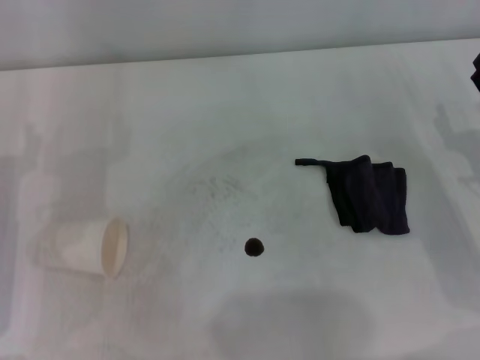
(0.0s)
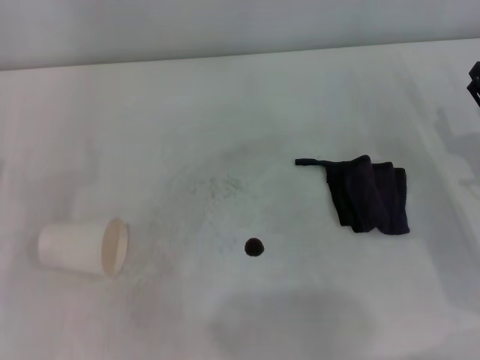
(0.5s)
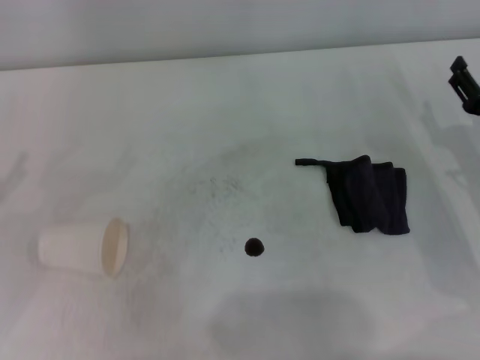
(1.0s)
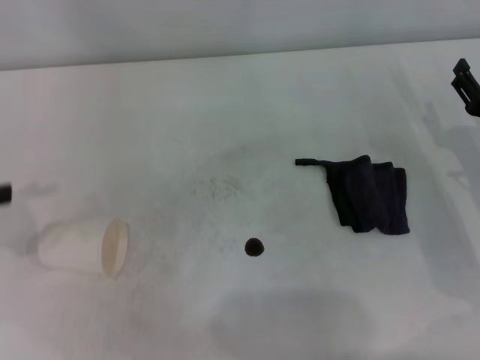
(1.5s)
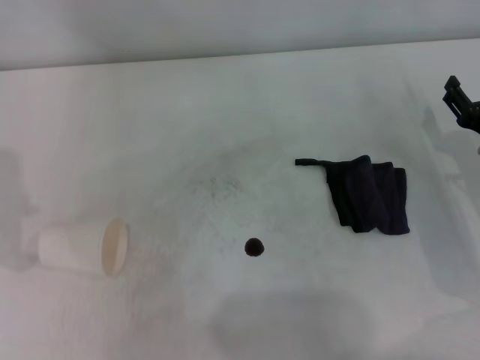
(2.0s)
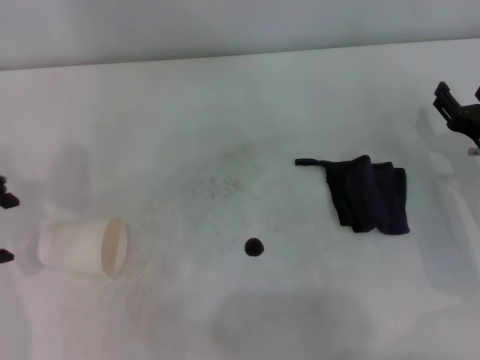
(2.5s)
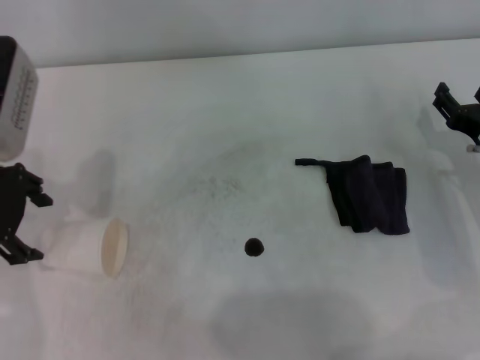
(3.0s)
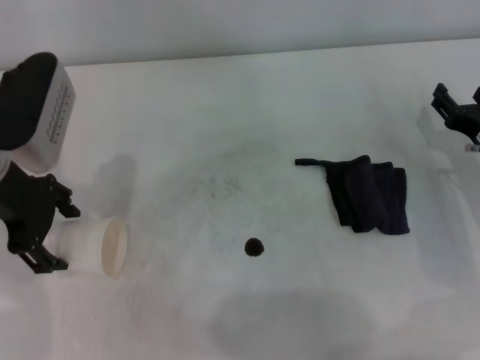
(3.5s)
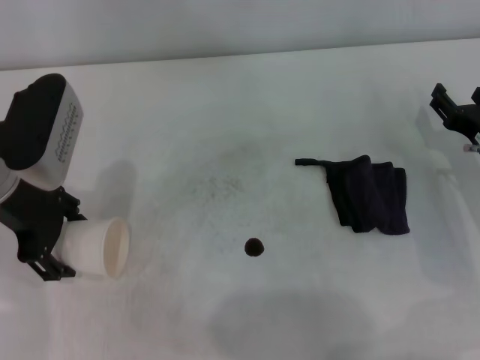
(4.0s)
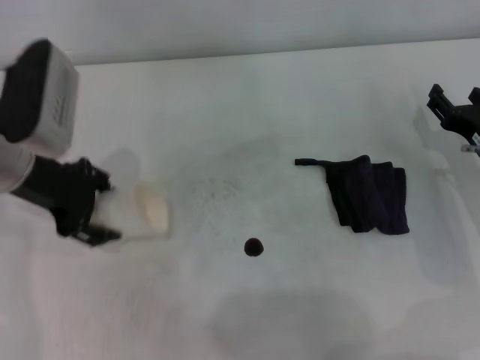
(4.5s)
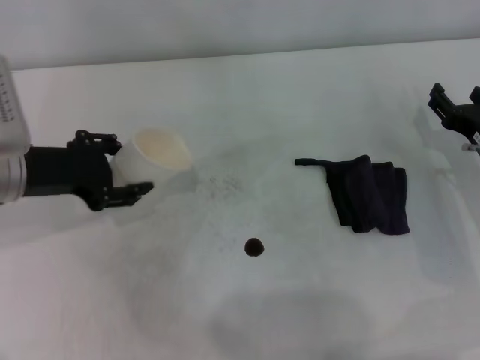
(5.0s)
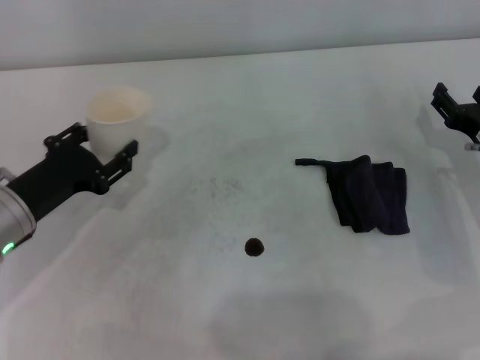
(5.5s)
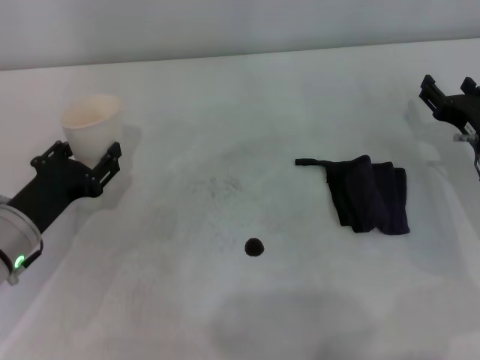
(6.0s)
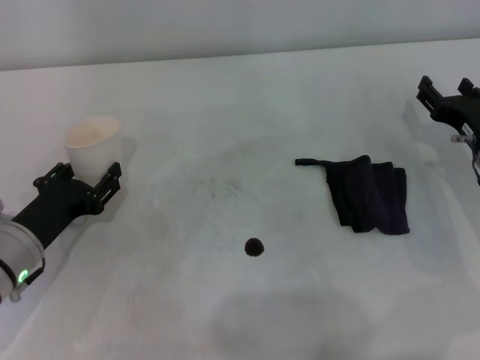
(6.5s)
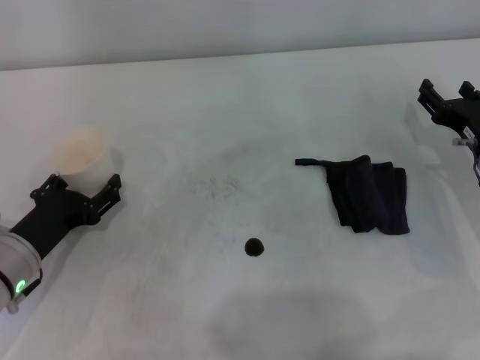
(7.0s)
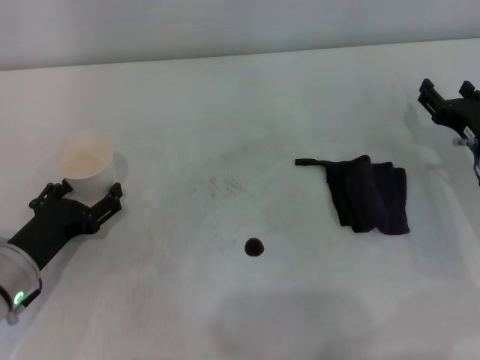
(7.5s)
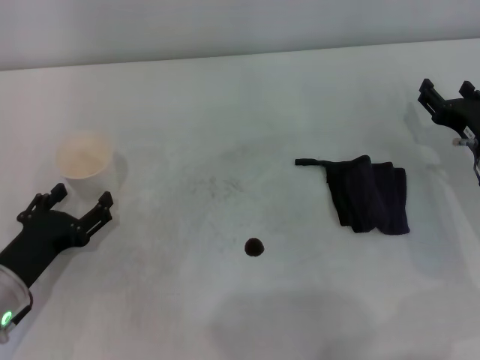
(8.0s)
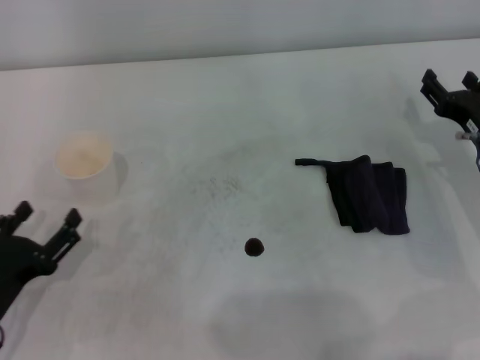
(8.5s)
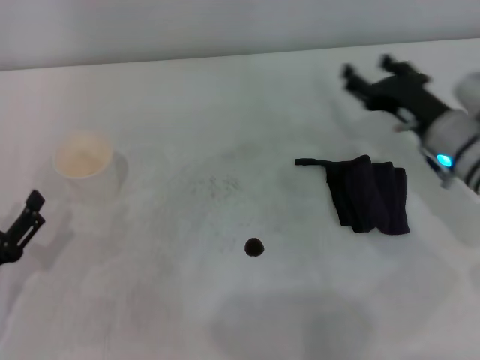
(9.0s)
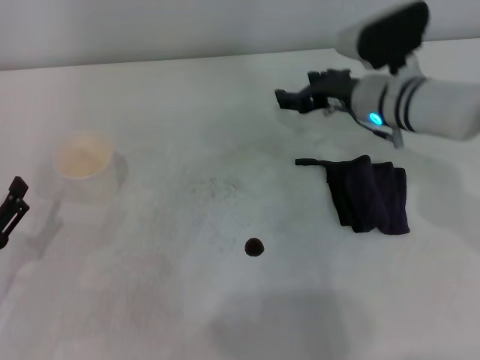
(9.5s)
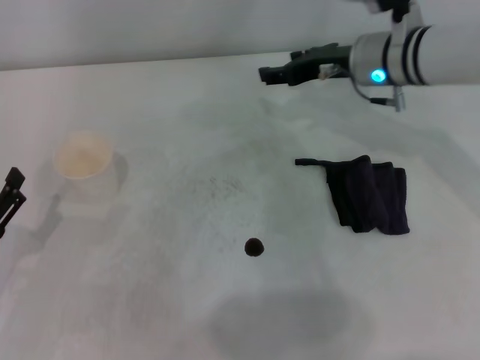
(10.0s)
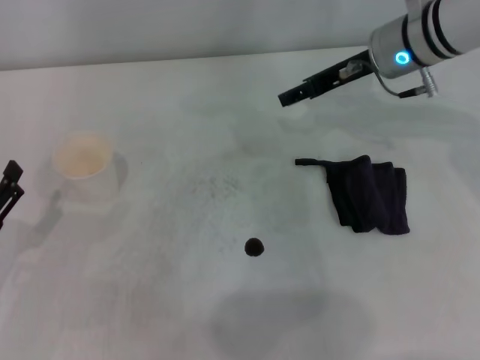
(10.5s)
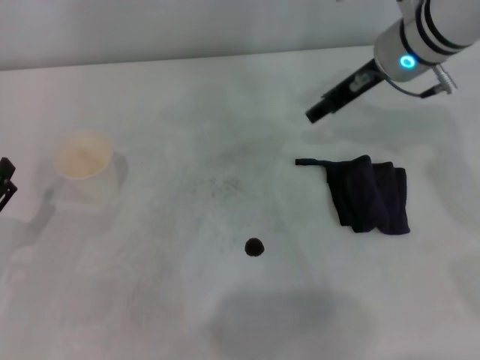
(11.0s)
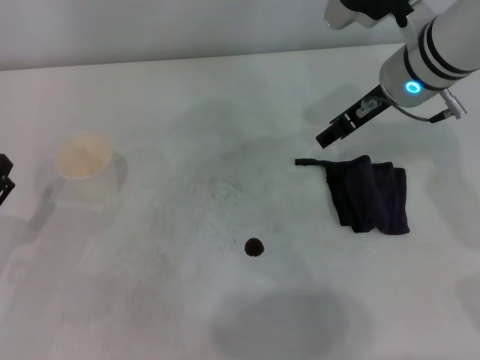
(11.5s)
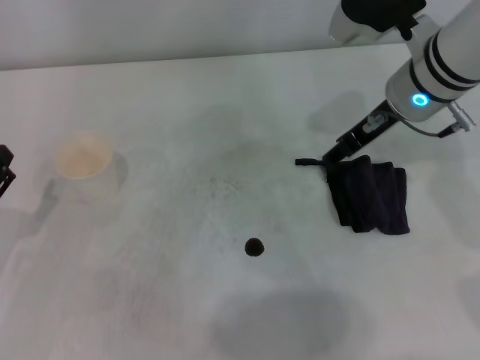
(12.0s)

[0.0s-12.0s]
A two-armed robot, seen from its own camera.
Step, 0.0s to 4.0s: Grasp the paper cup with the left gripper.
Step, 4.5s to 7.0s: Stand the paper cup upright with the left gripper.
2.0s to 4.0s: The left gripper moves to the right and downward, some 15 cm.
4.0s to 6.0s: The left gripper moves downward and backward, some 15 cm, and closes up.
6.0s to 8.0s: The left gripper goes some 5 cm backward, and opens.
8.0s to 10.0s: The right gripper is displaced forward, to the left and upward by approximately 20 cm. The left gripper moves about 5 cm.
10.0s to 12.0s: The right gripper ends up about 5 cm from where it was.

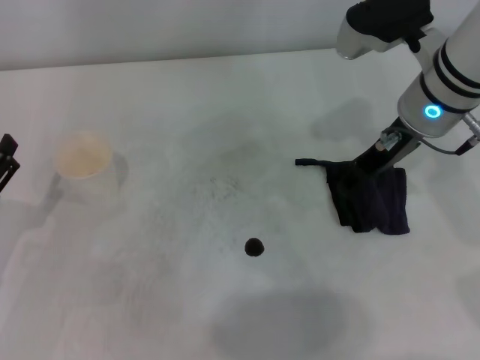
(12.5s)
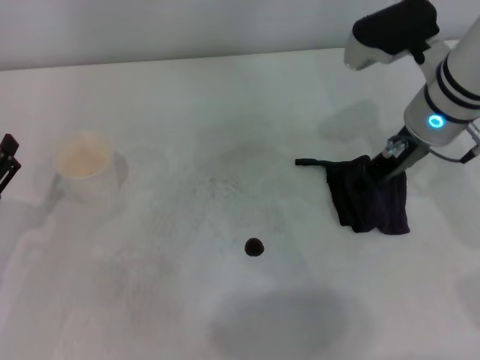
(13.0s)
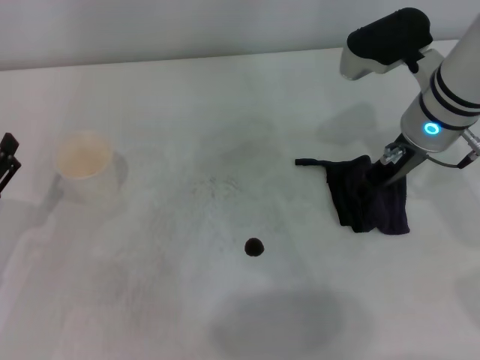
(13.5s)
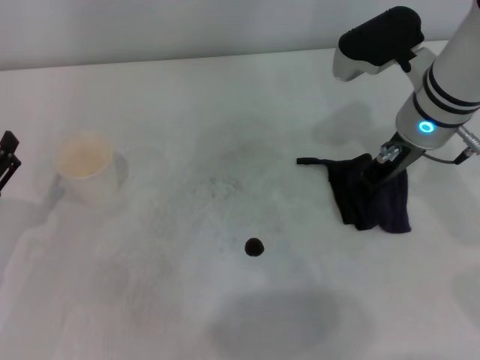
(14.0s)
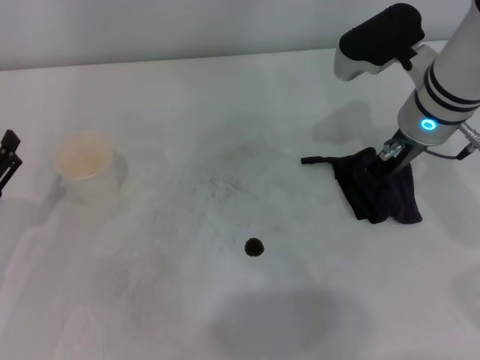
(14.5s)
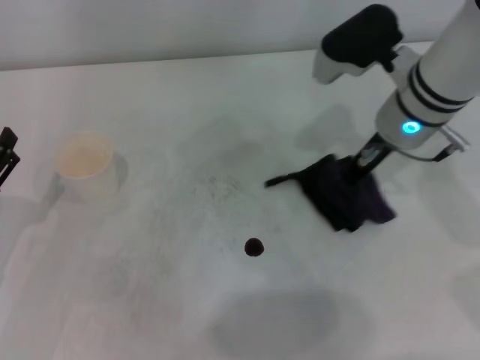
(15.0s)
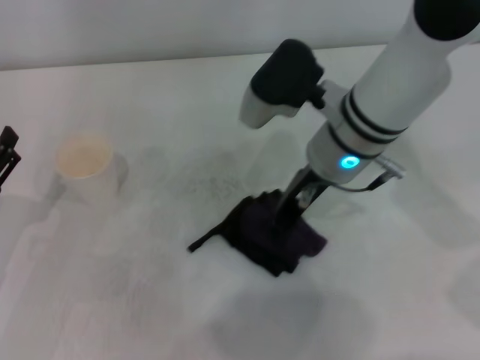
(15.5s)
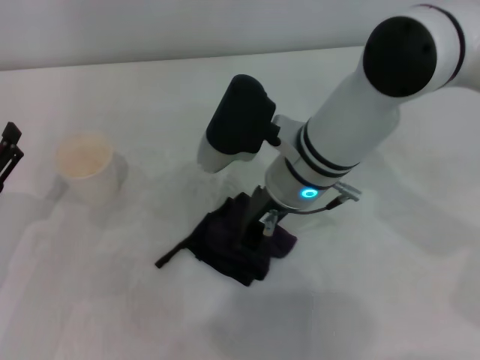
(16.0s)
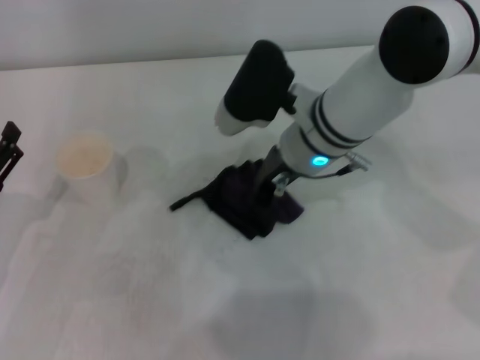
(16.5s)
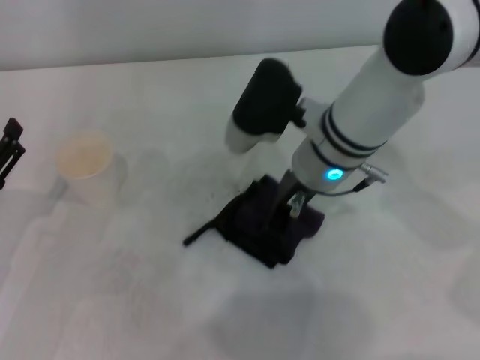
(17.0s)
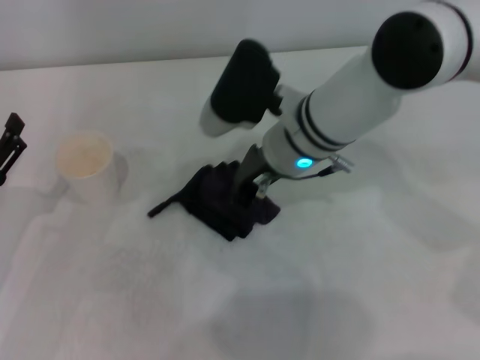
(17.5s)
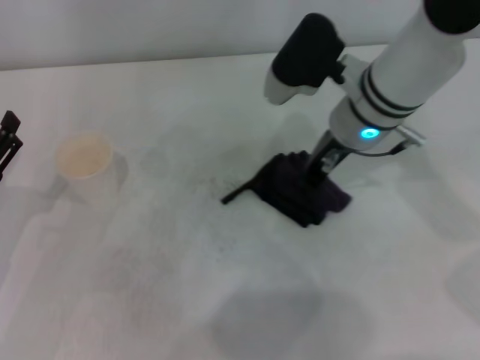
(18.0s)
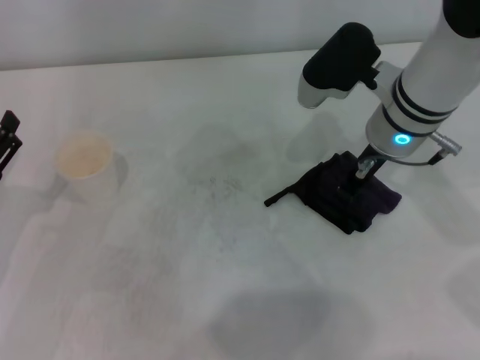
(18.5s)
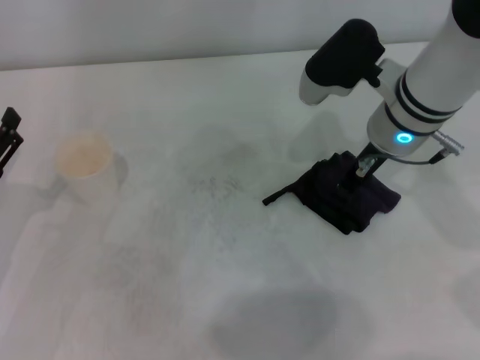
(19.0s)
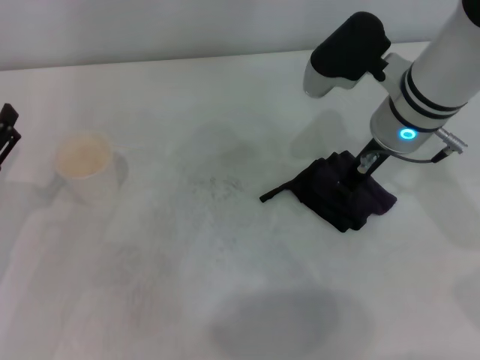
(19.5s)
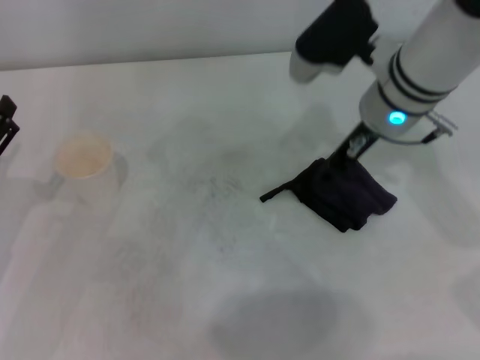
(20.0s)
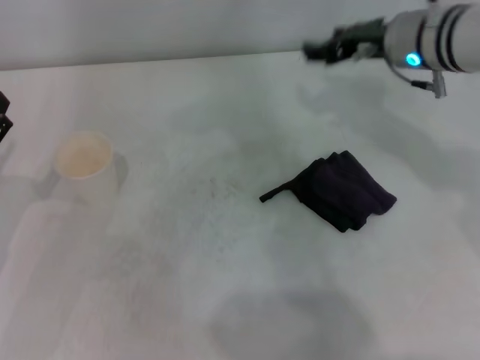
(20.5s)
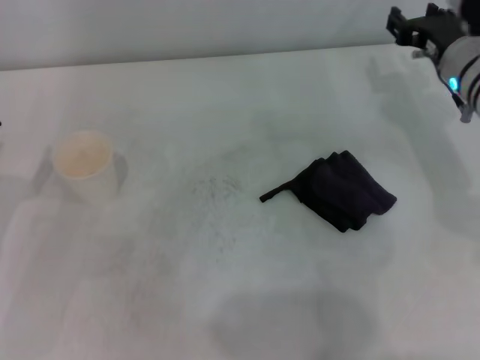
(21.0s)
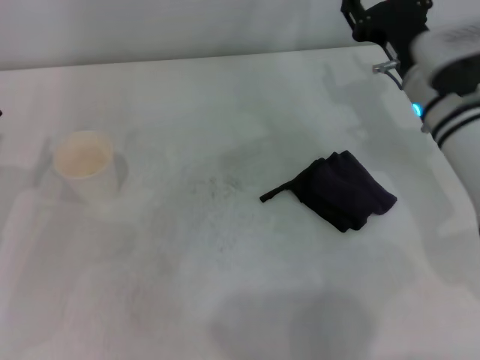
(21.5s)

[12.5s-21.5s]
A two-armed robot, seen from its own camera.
Step, 15.0s to 18.5s: Wipe the stains off the table with the right gripper.
Step, 19.0s to 19.5s: Place the rag on the table with the right gripper.
12.5s to 14.5s: The right gripper closes its fingers.
14.5s to 17.0s: The right gripper is displaced to the left by about 10 cm.
17.0s to 19.5s: The right gripper shifts roughly 5 cm to the right.
19.5s to 21.5s: The right gripper changes place by approximately 5 cm, and opens.

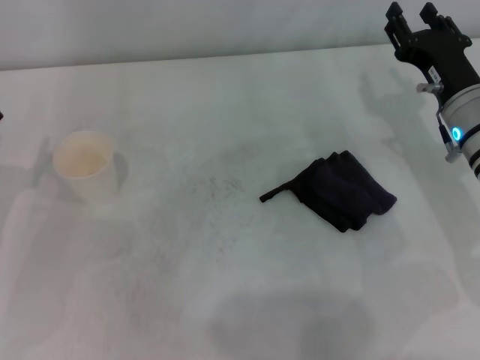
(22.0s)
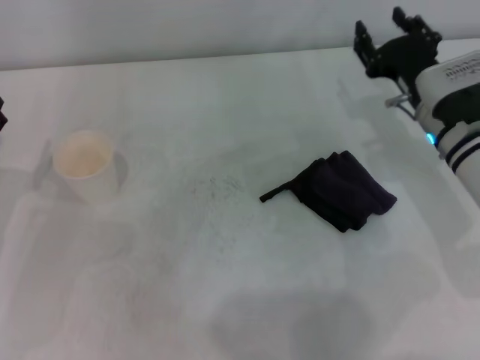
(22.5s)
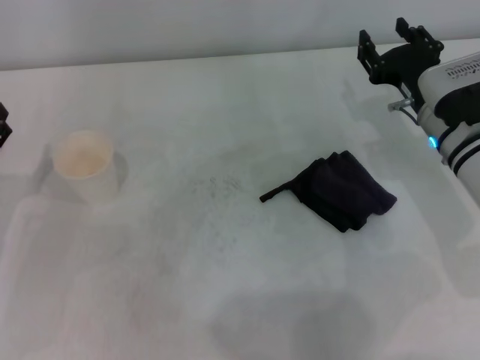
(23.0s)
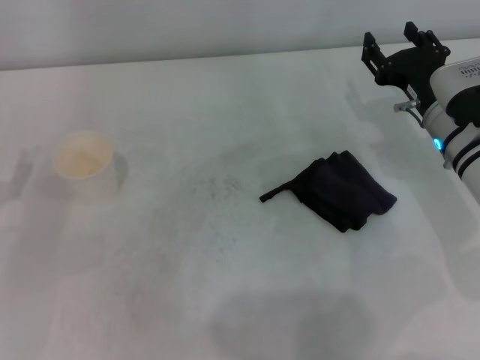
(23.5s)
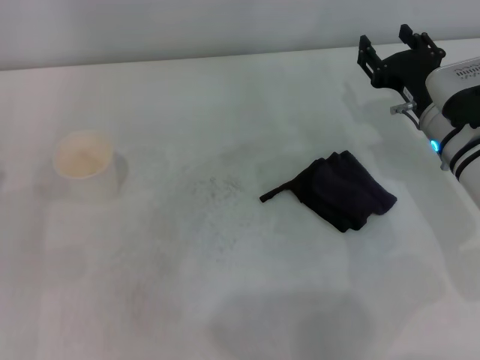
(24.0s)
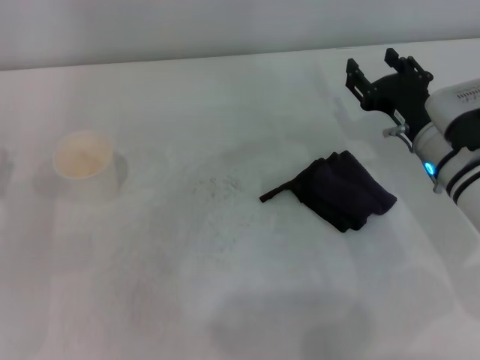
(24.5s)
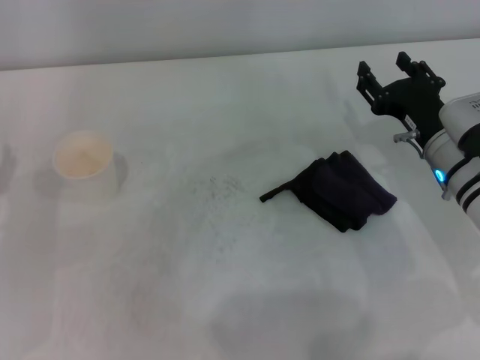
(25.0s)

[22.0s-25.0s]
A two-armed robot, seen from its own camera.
23.5s to 25.0s: The grippers stay close to where they were, moving slightly.

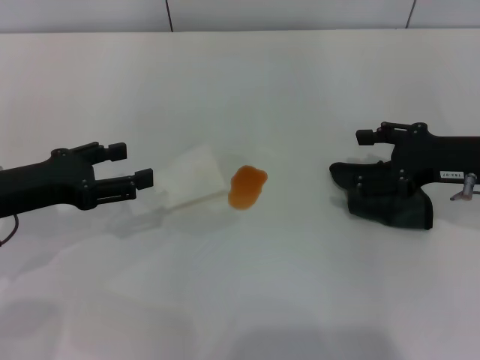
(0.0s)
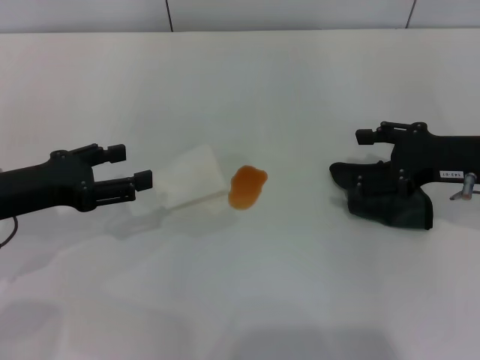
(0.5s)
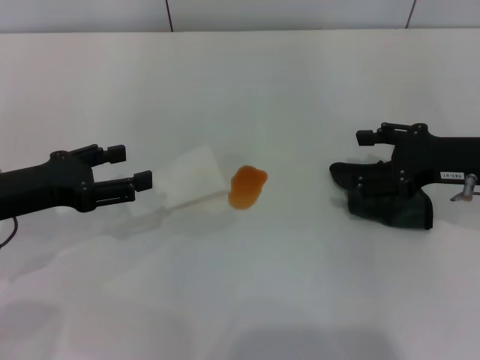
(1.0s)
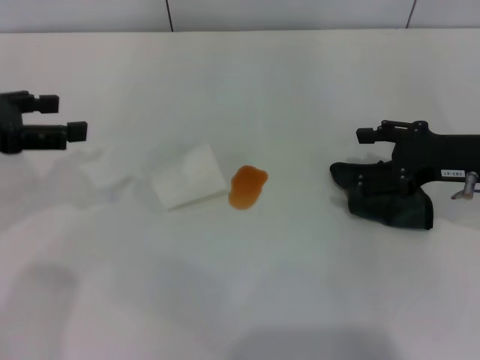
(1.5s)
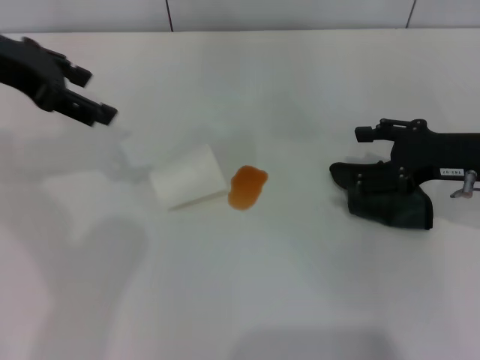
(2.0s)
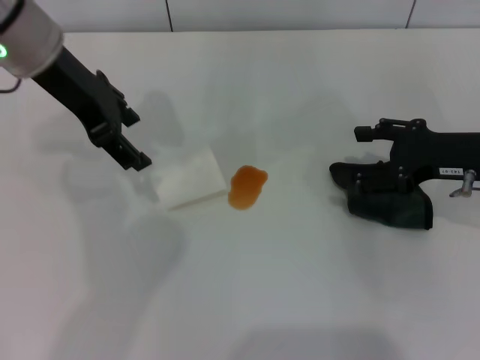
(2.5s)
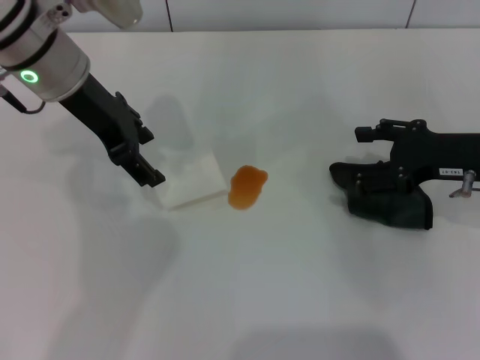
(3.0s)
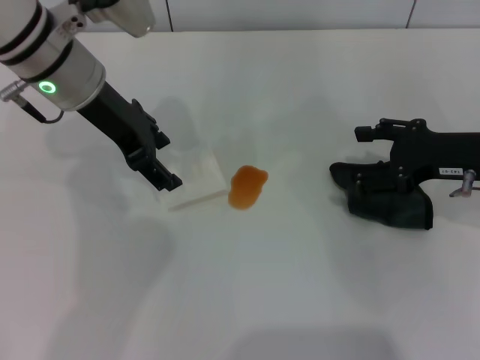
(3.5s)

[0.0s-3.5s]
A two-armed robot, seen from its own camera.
0.0s to 2.0s: The left gripper goes approximately 20 cm upward and forward.
2.0s to 3.5s: The left gripper heads to the right and downward, covering about 10 cm.
